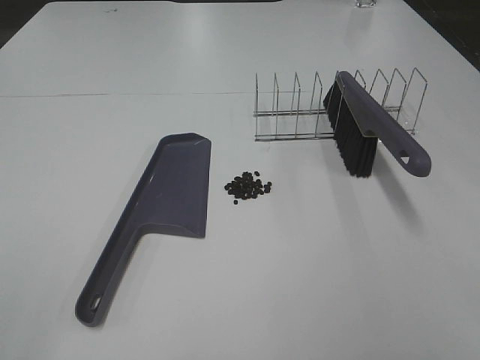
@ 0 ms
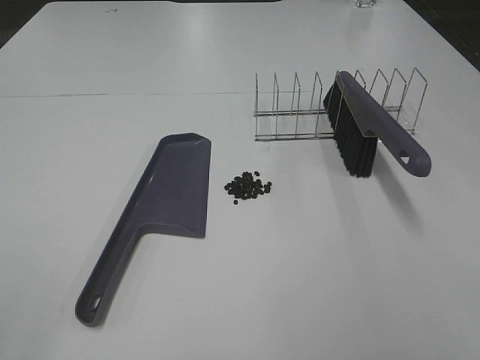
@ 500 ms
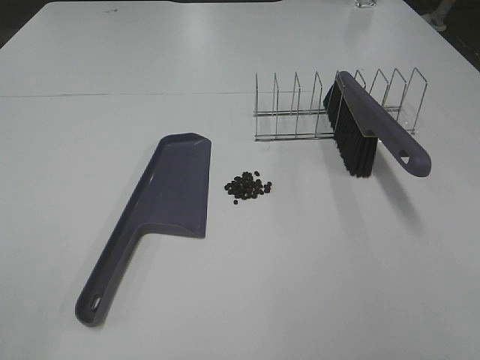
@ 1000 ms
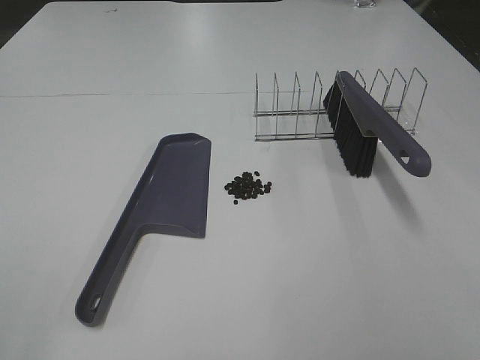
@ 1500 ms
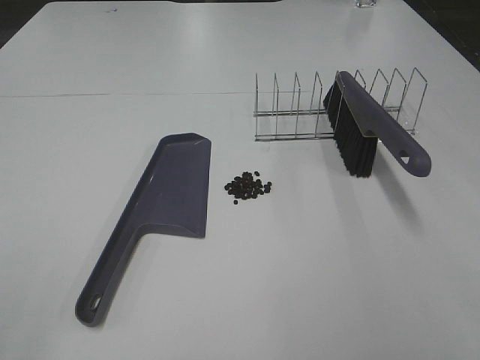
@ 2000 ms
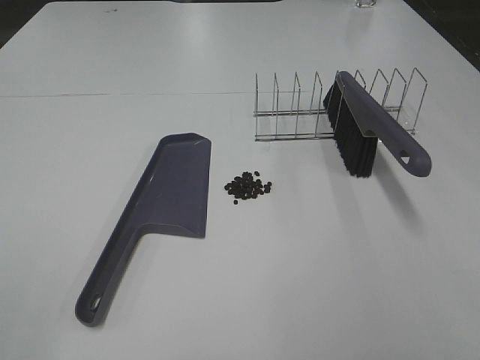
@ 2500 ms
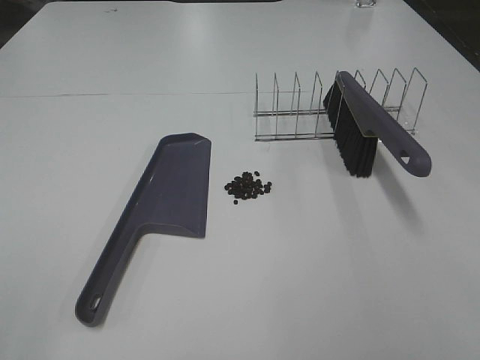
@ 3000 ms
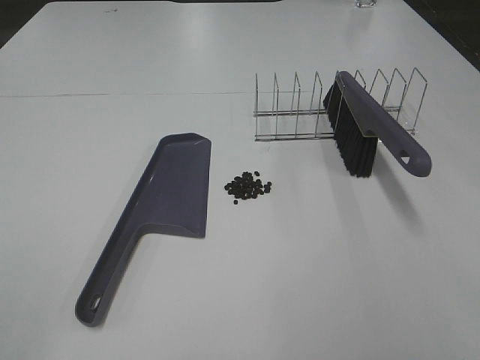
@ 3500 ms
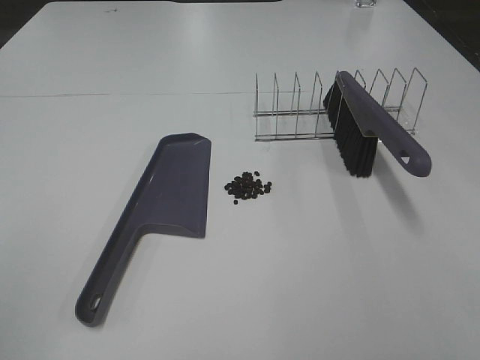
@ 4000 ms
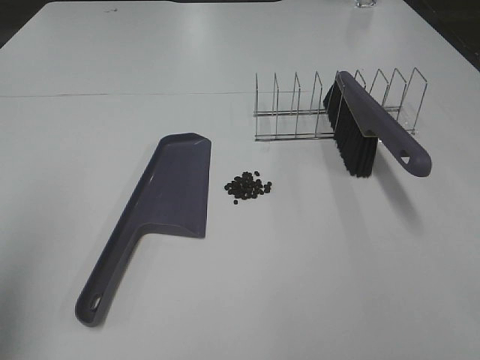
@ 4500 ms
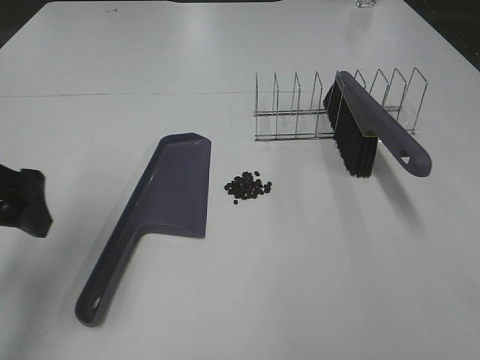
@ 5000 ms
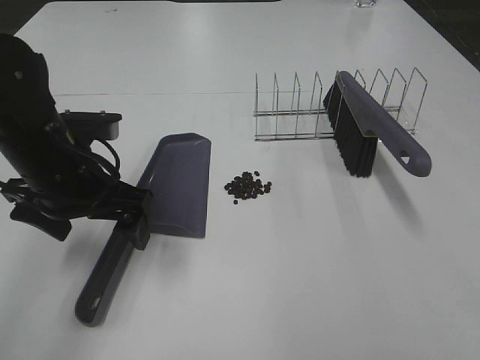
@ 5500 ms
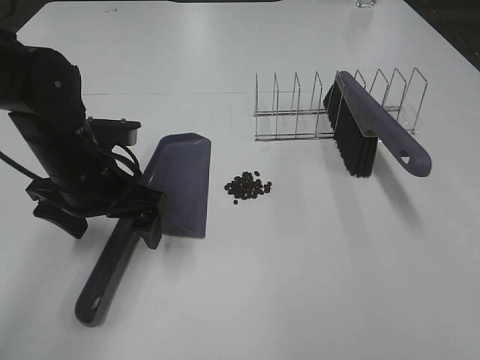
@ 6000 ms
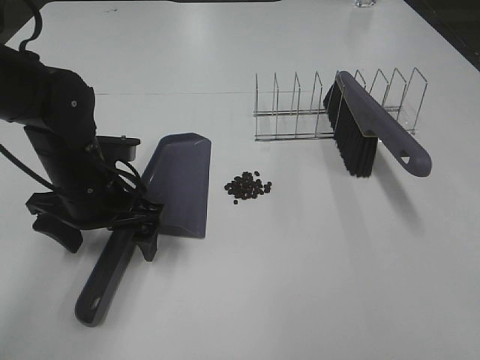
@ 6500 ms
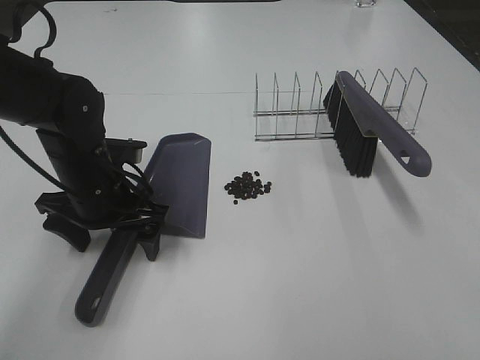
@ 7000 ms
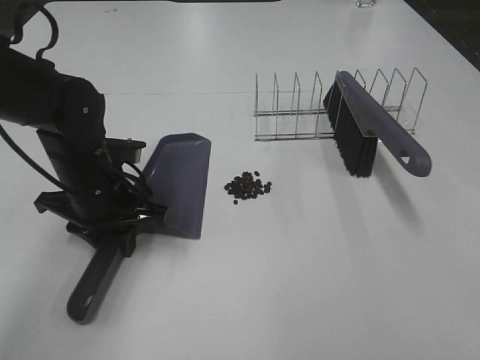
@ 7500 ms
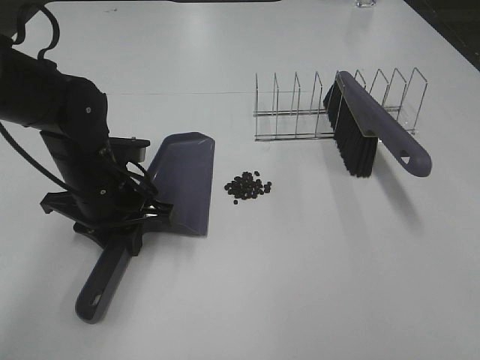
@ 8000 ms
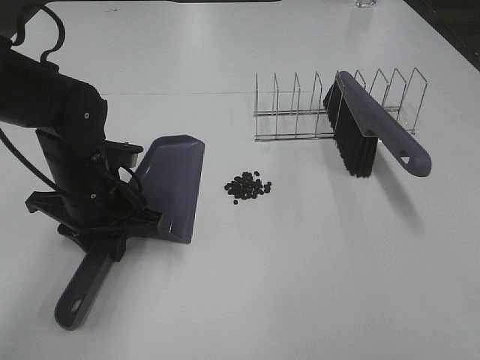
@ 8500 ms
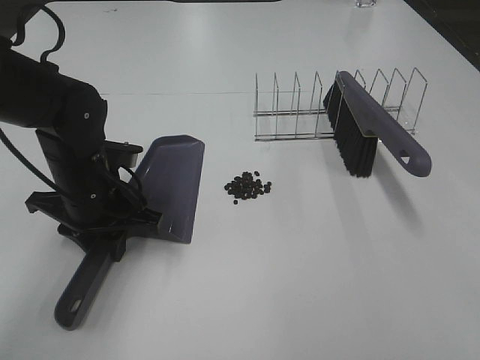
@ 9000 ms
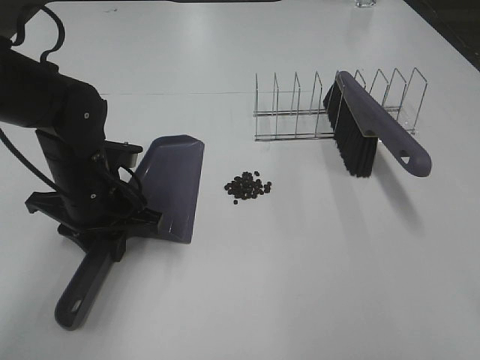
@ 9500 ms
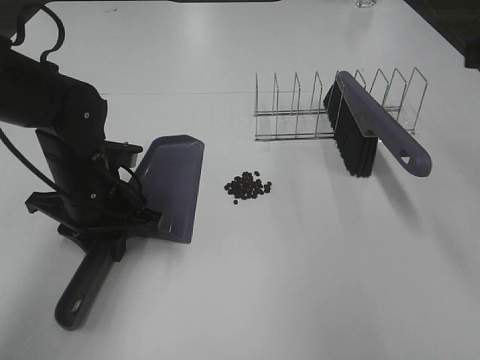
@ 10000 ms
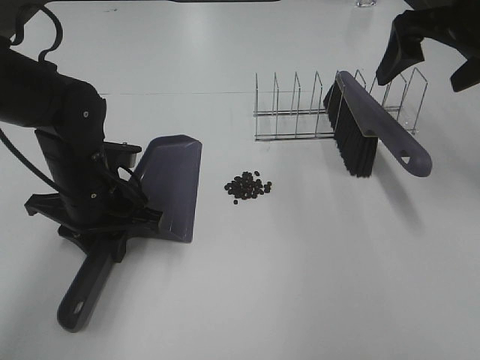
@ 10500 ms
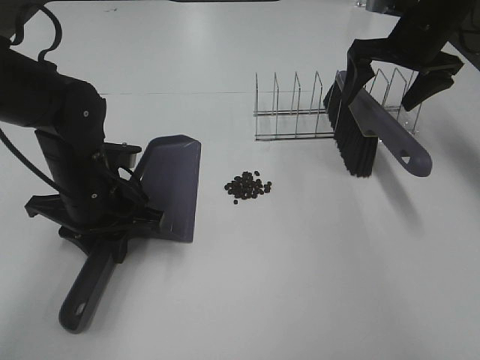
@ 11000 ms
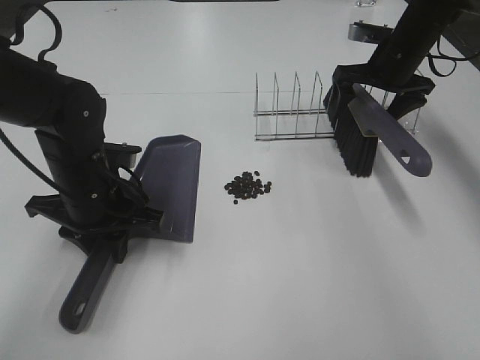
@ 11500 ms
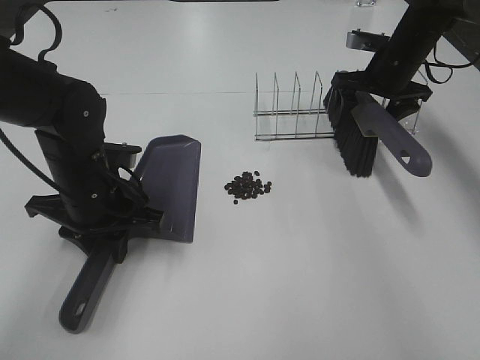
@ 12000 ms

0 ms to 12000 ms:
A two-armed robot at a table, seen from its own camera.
Task of the whole recording: Sweep Coffee Bean.
Step, 0 ms to 7500 ms: Left hand: grab the dustpan.
4000 ms to 6000 ms: The left gripper moves forward, downward and to the right, some 35 cm.
6000 ms to 8000 ms: The left gripper closes its fingers.
8000 ms to 10000 ms: The right gripper moves forward, approximately 20 cm.
10000 ms to 12000 ms: The right gripper is displaced forward and downward by about 35 cm.

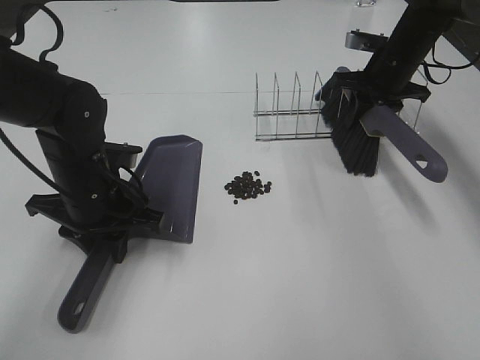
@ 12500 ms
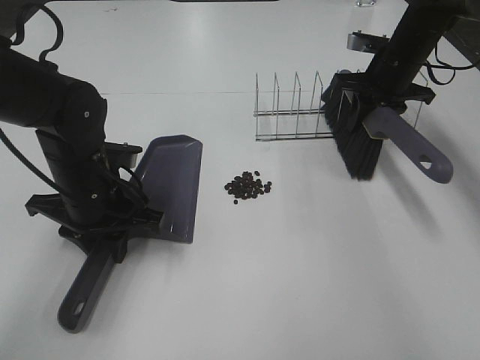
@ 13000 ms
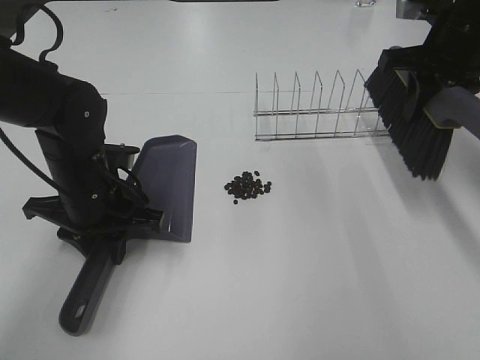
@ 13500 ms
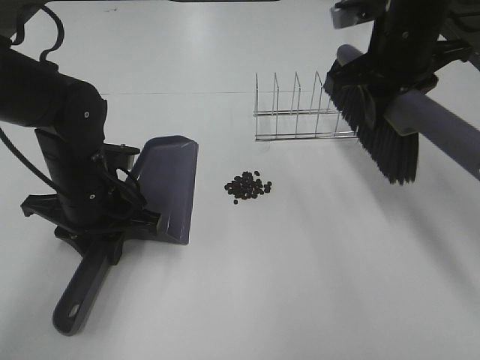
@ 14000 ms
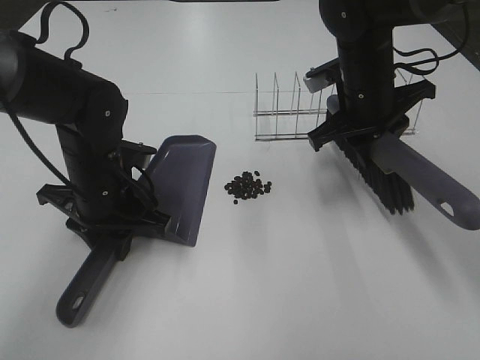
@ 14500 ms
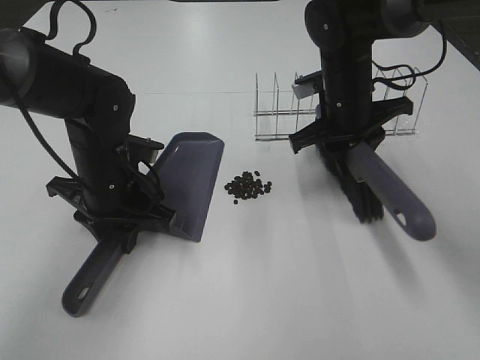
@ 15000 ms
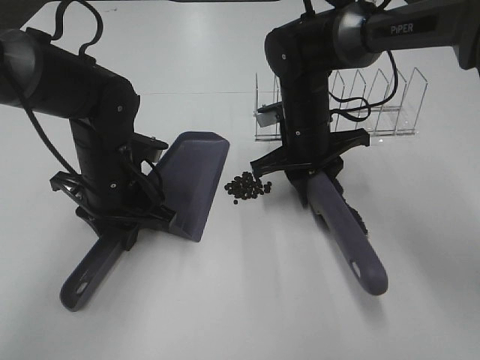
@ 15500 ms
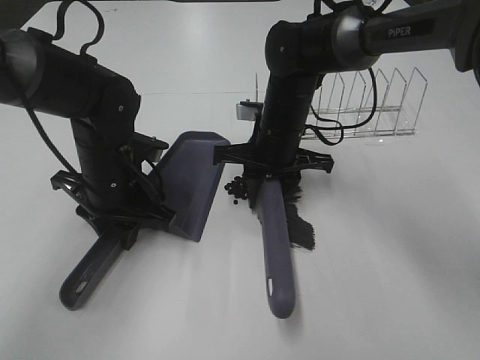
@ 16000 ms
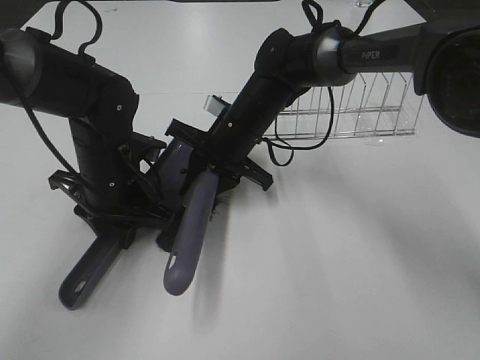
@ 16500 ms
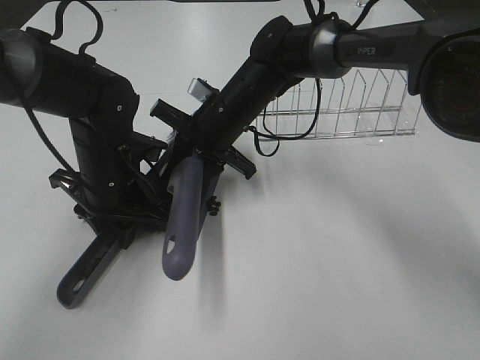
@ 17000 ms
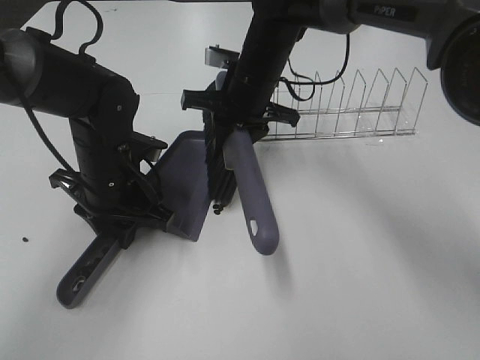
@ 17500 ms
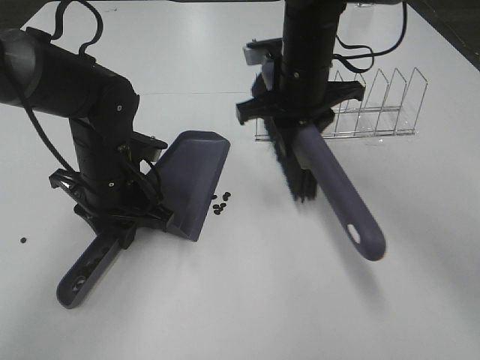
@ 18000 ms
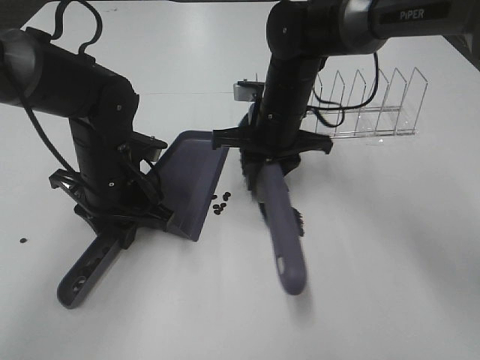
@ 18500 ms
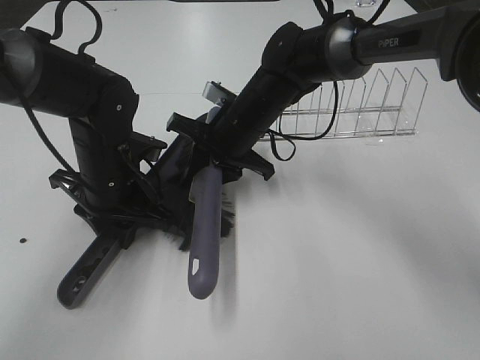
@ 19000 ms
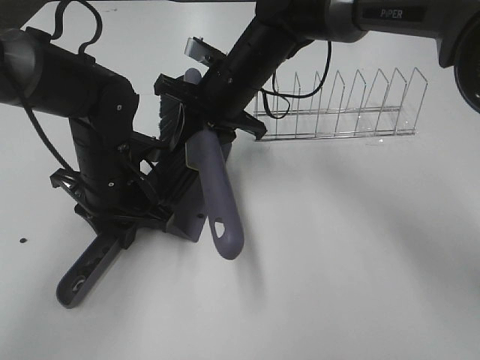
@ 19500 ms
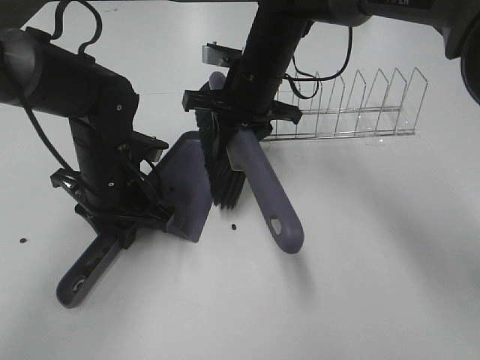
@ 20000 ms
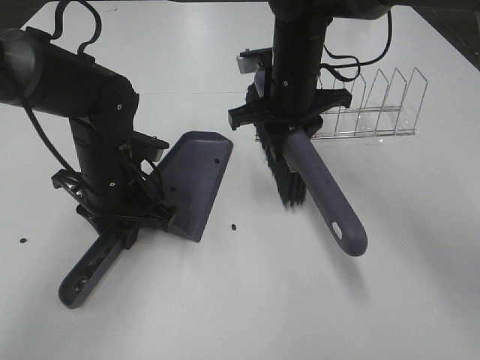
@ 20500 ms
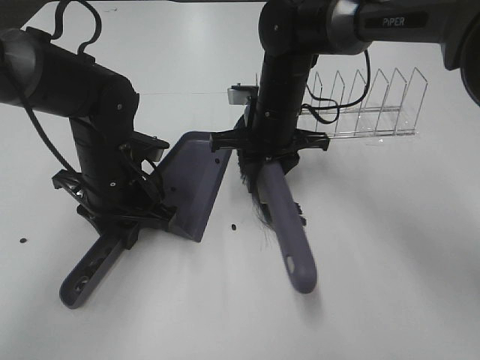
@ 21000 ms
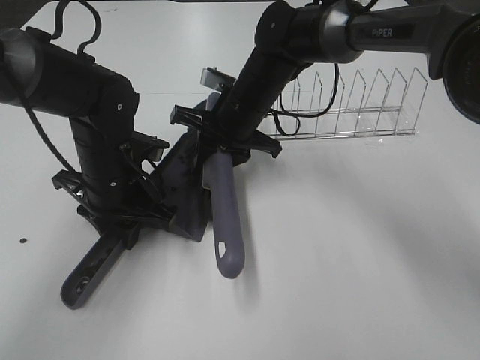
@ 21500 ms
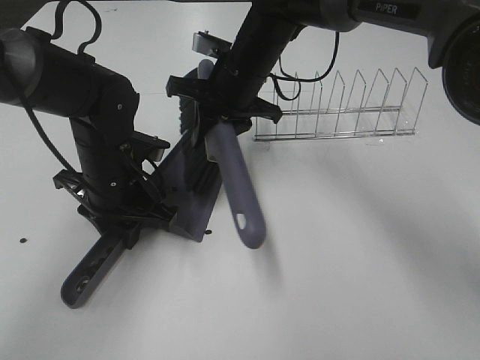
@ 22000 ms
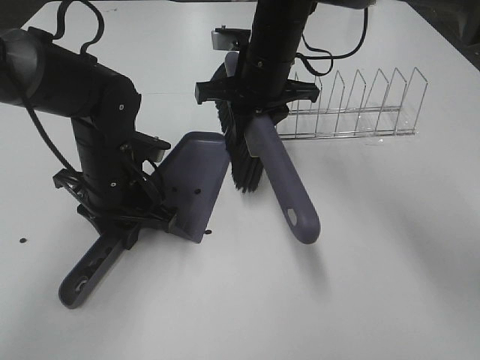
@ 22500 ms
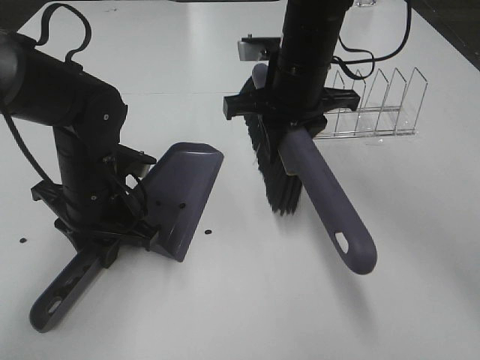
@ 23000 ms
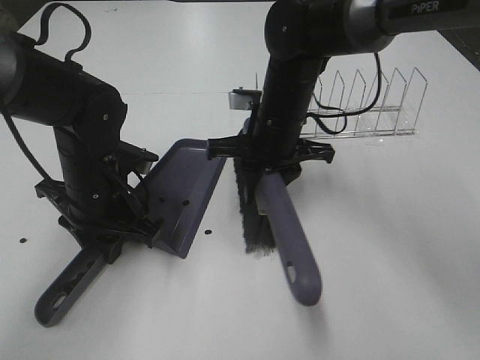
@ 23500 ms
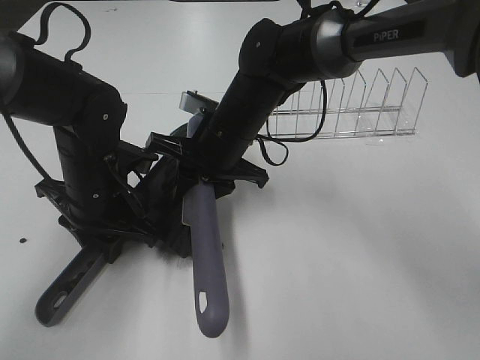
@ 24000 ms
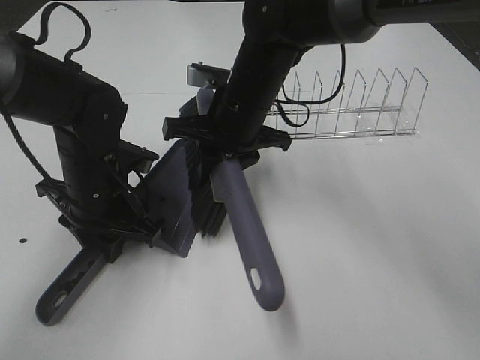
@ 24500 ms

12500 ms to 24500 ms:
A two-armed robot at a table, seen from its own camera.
Task of the whole recording: Sweep Coffee Bean.
Step, 12500 ms to 24000 ms: Right hand:sweep the coffee beans into the dustpan.
12500 ms to 14500 ms: The right gripper is displaced backward and to the left by approximately 15 cm.
14500 ms to 16500 ms: The right gripper travels to the left and downward by approximately 15 cm.
22500 ms to 24500 ms: The right gripper is displaced backward by about 5 cm.

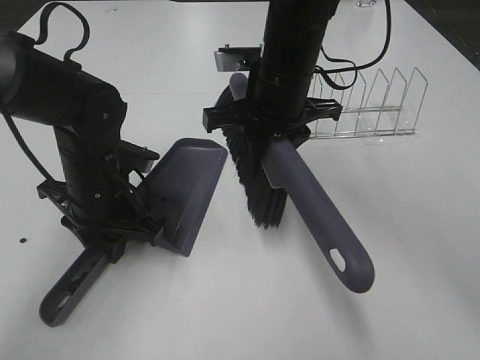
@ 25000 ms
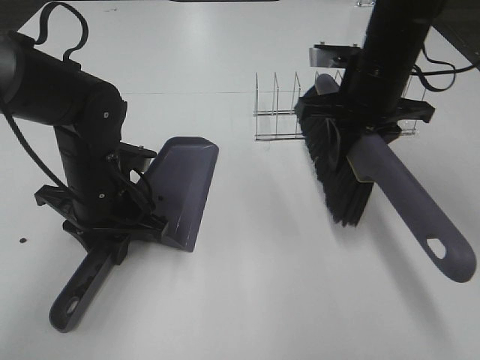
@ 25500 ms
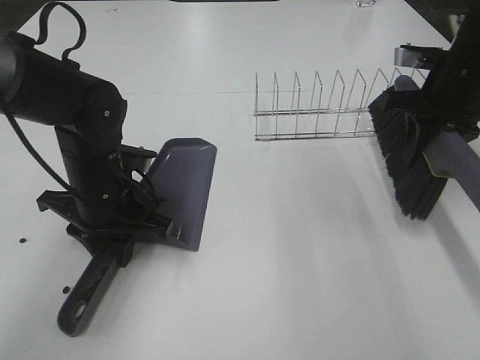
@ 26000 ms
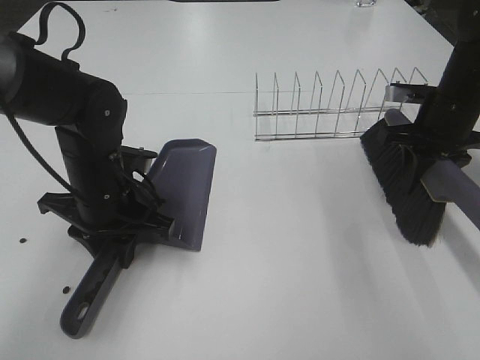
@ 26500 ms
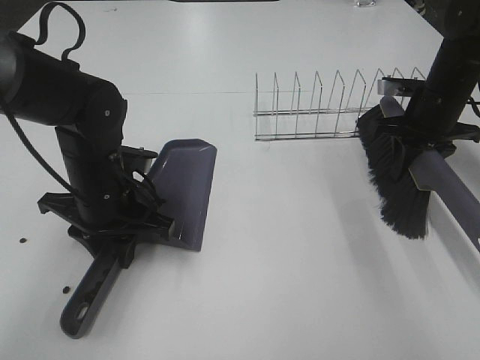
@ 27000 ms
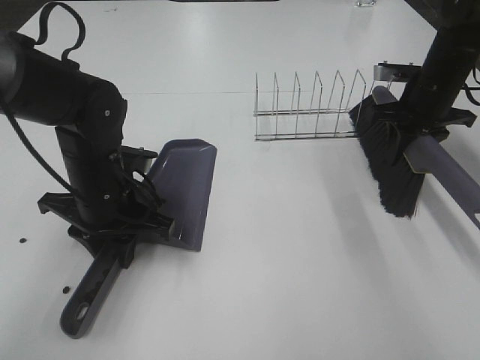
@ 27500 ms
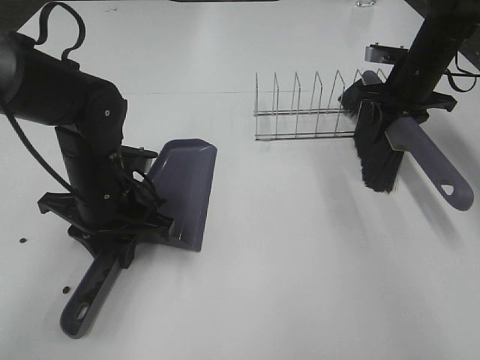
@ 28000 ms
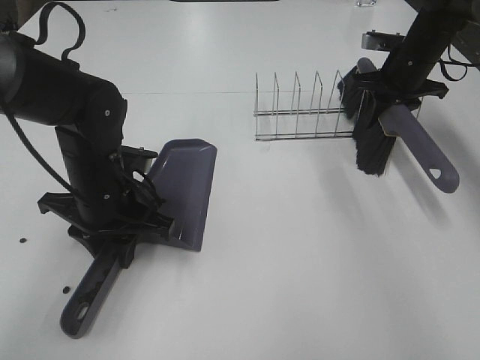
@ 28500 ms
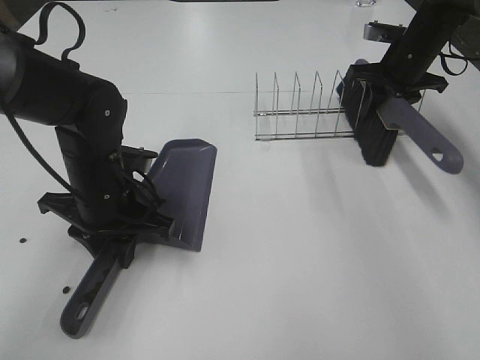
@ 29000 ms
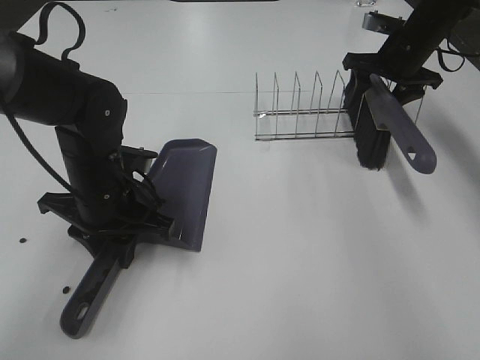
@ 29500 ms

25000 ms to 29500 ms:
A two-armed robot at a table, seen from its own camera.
Task of the whole recording: Sweep Coffee Bean.
25000 ms to 27000 ms: The right gripper is displaced to the right by some 20 cm.
27000 ms to 29500 ms: The right gripper heads forward, covering roughly 10 cm, and opens up.
